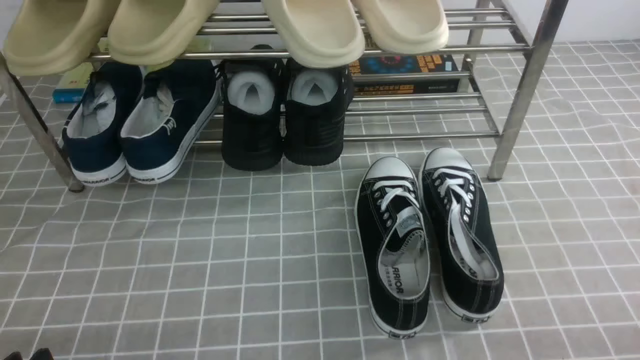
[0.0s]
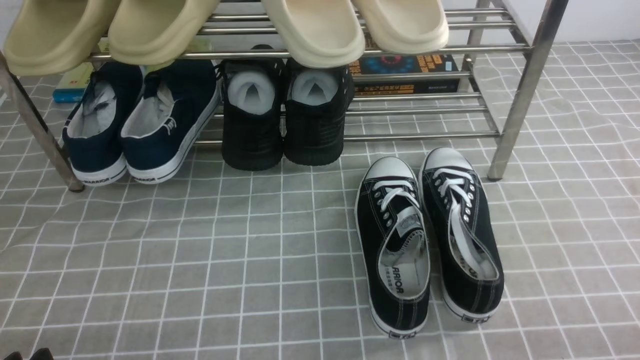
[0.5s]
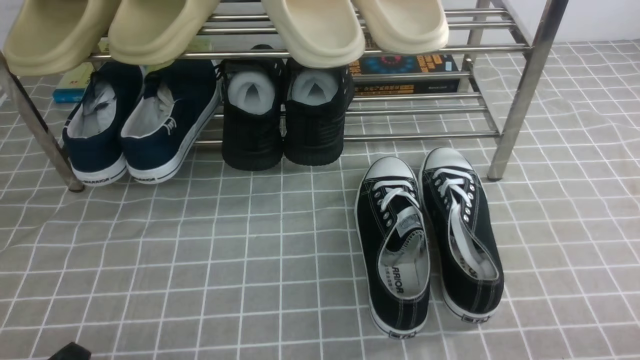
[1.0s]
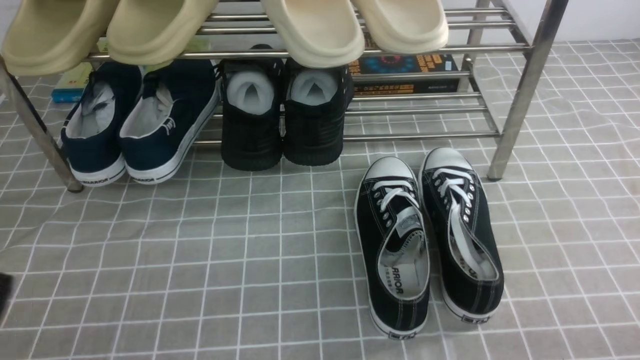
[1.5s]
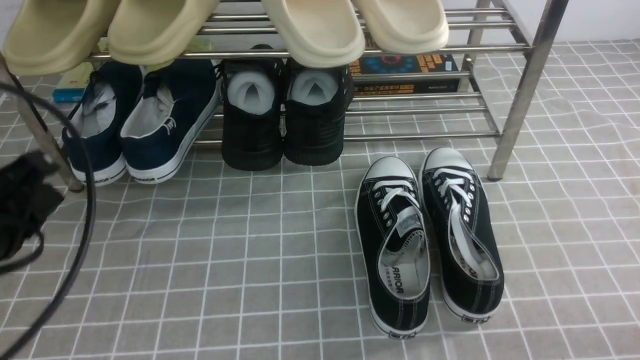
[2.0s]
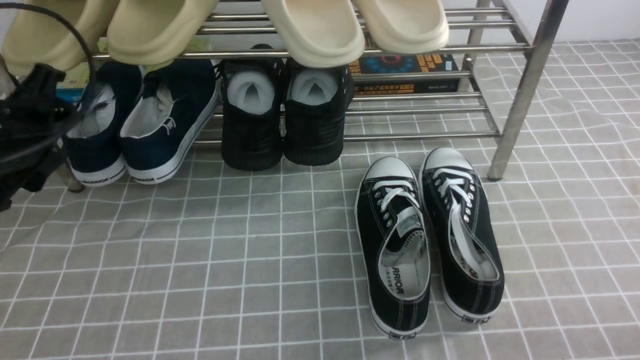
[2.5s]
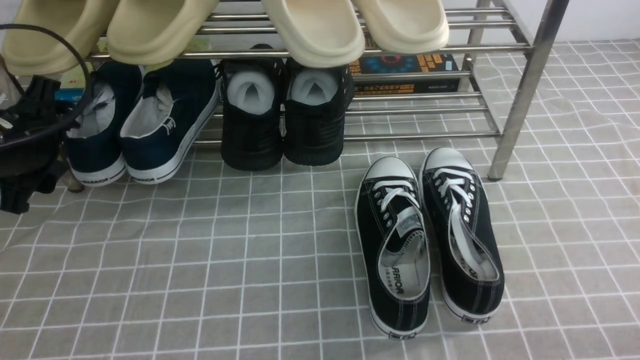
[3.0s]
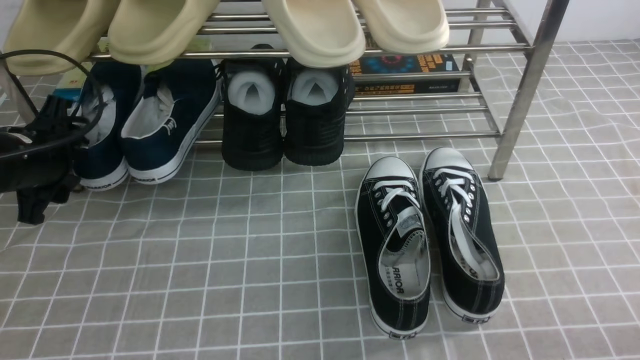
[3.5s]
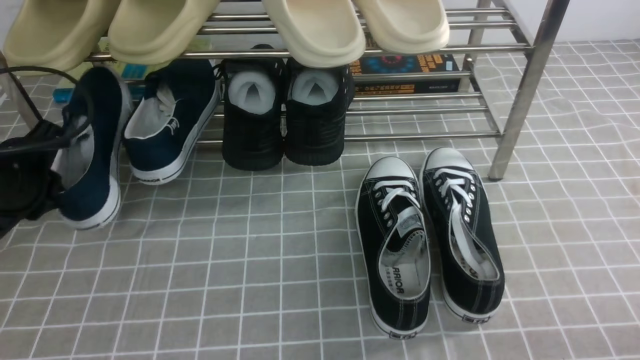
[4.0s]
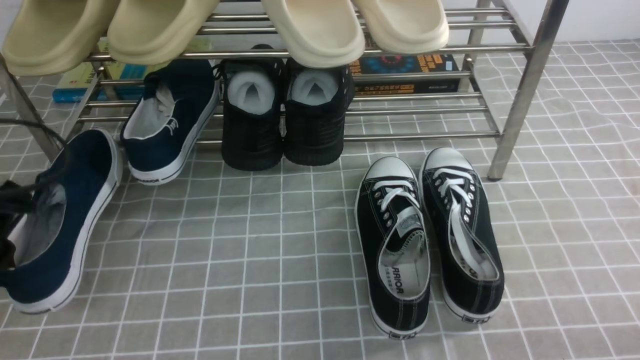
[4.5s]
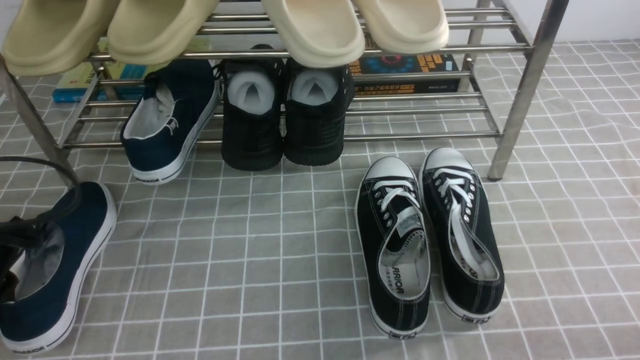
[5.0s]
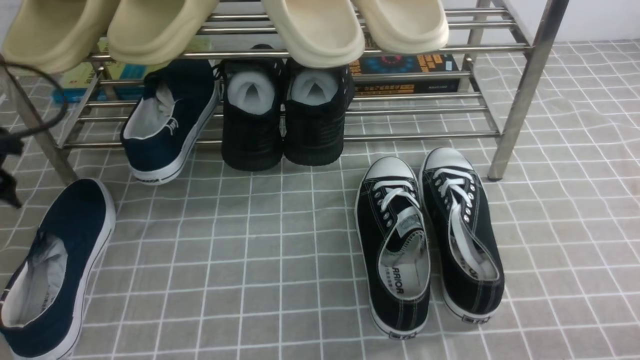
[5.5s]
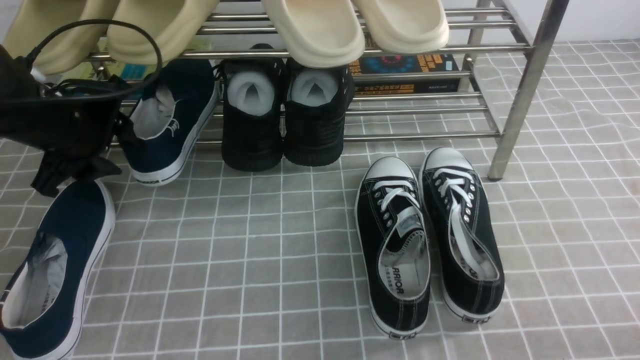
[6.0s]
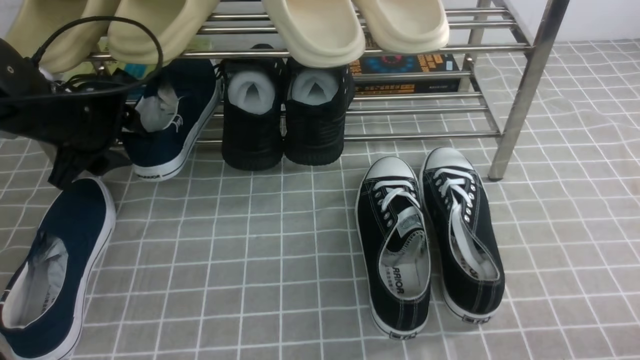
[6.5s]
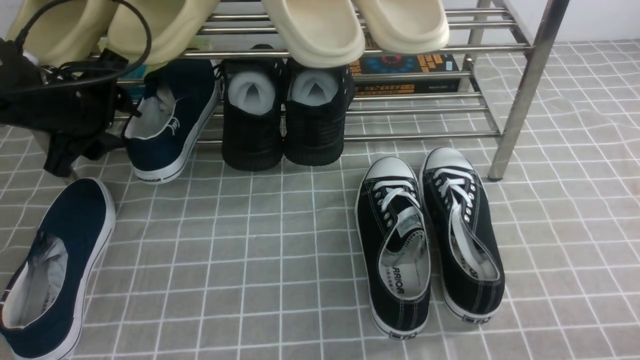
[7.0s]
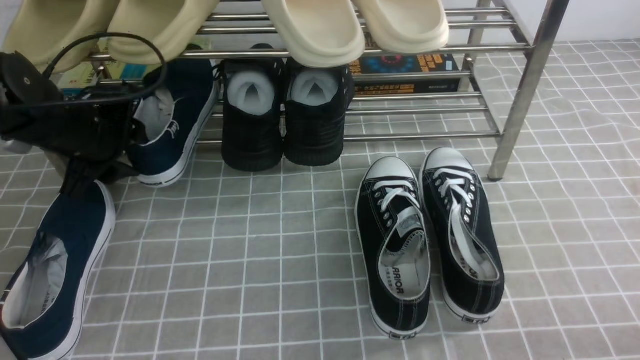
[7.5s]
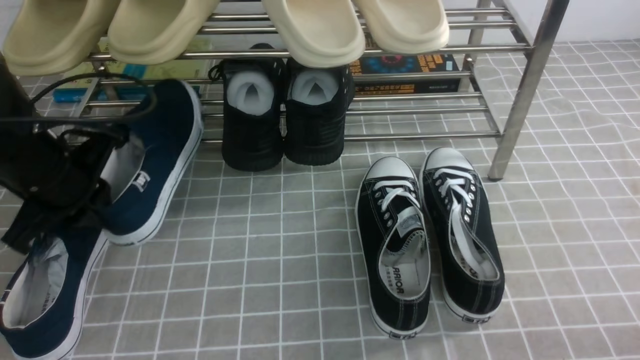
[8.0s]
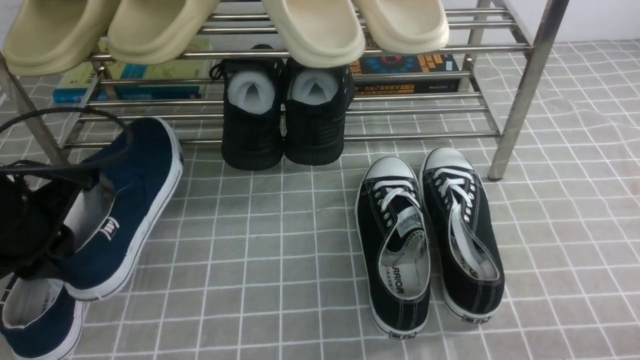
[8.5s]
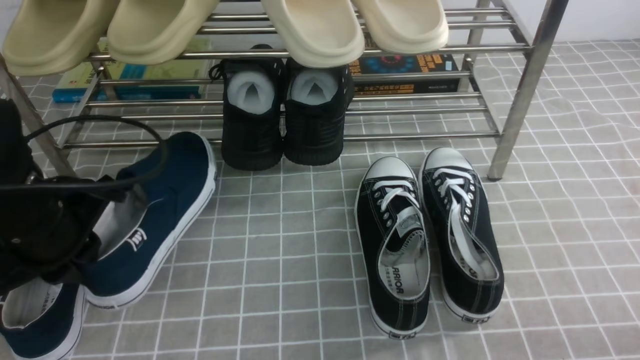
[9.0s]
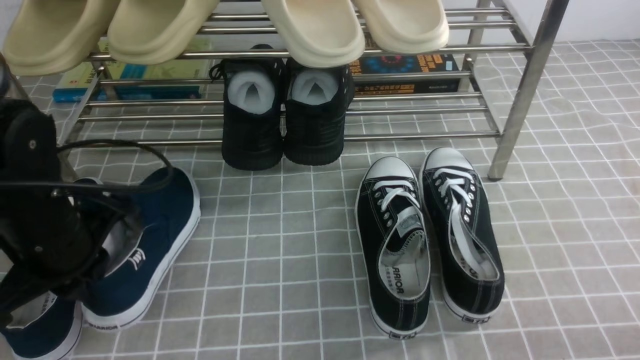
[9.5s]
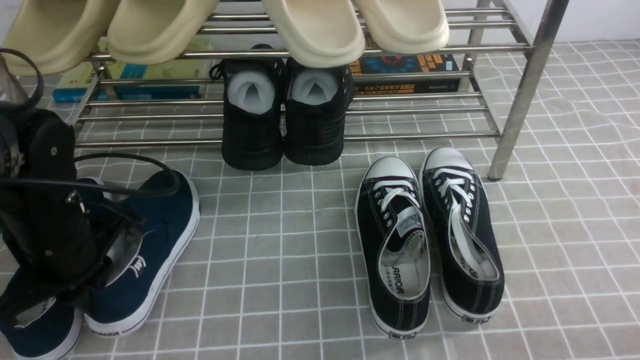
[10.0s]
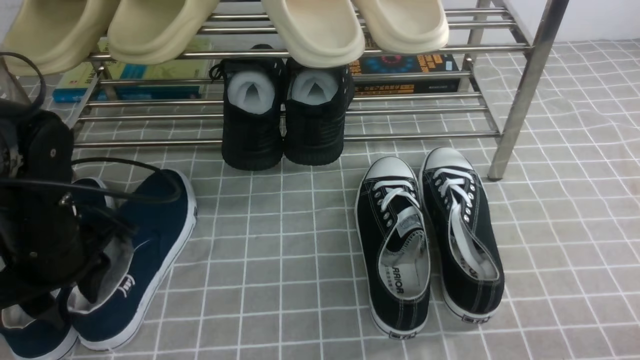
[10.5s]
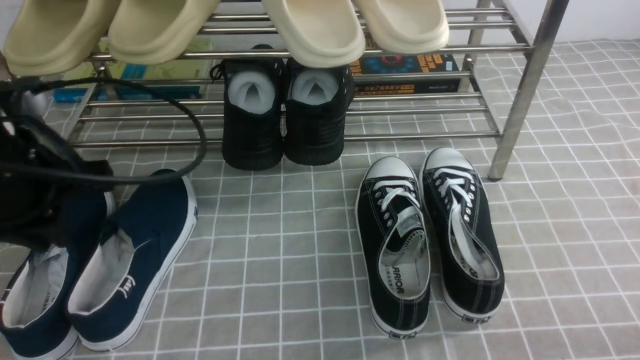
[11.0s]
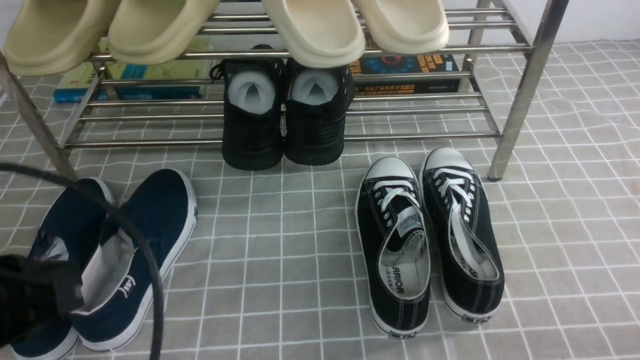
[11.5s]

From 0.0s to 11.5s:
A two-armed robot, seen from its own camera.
Step, from 0.0s to 3.5s: use the left arm to clamp a shoe on the left side of the shoe rack.
Step, from 4.0s to 5.5s: Use your left arm to remove the clamped shoe from the shoe rack and put it down.
Step, from 6.0s to 7.5s: use the left arm to clamp a shoe on the left side of the shoe rack.
Step, from 8.0s to 10.5s: Use your left arm to remove the clamped shoe from the shoe rack and put it down.
From 2.0s to 4.0s: The left gripper heads forward and downward, covering some 20 cm, and opens and closes again.
From 4.0s to 6.0s: The left gripper moves approximately 10 cm backward and comes back, and opens its fingers.
From 6.0s to 7.5s: The left gripper changes place by some 5 cm.
From 7.5s to 9.5s: The left gripper shifts some 10 cm backward, and closes.
From 9.5s to 11.5s: The left gripper moves backward and upward, approximately 15 cm, and opens and closes again.

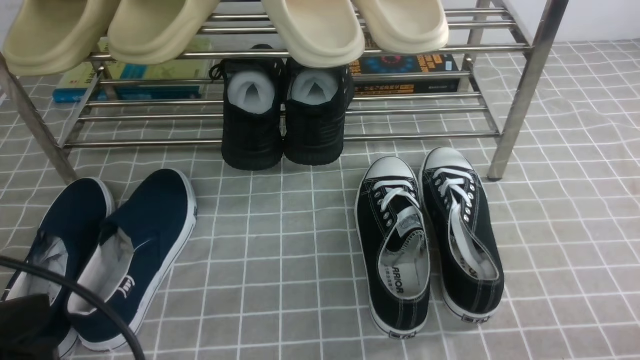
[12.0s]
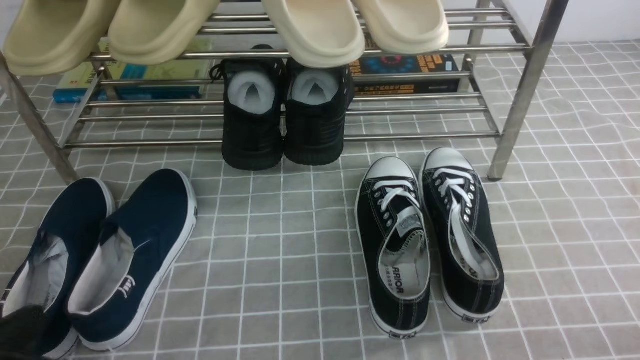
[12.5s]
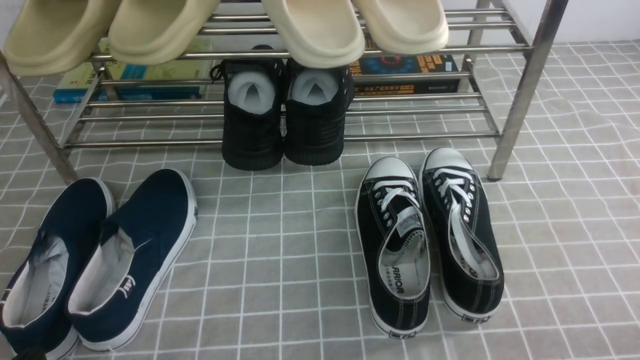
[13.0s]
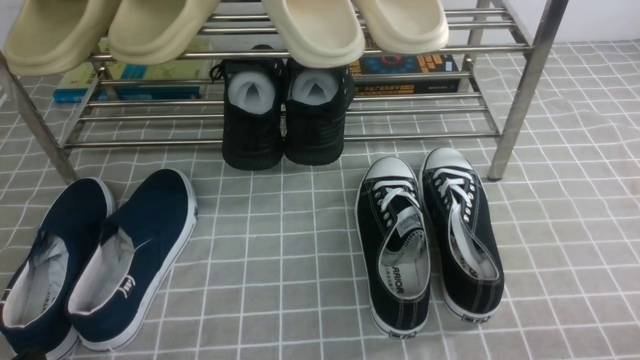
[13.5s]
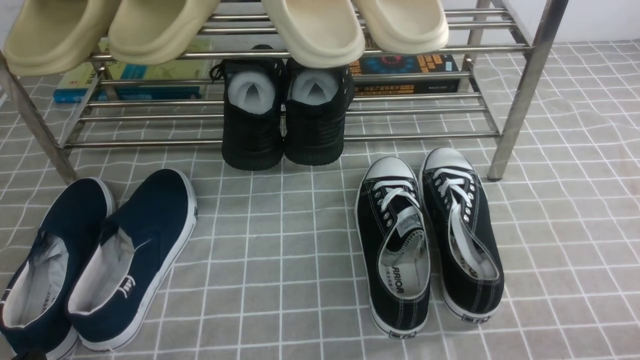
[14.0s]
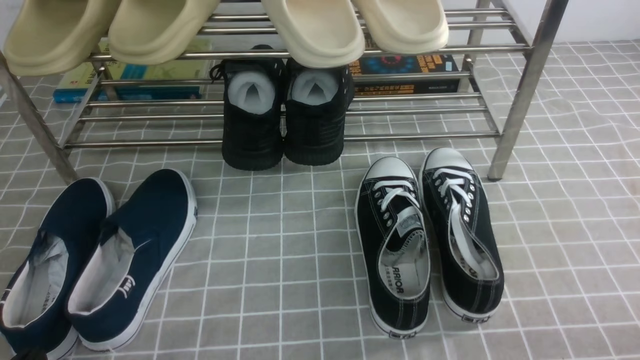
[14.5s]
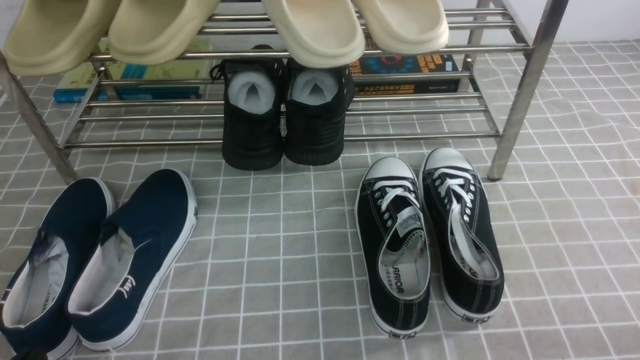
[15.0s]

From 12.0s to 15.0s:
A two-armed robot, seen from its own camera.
From 12.0s to 13.5s: The left gripper goes approximately 10 cm downward.
From 13.5s to 15.0s: Both grippers stay about where they are.

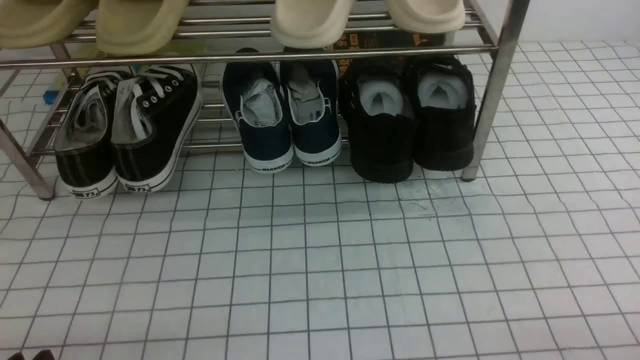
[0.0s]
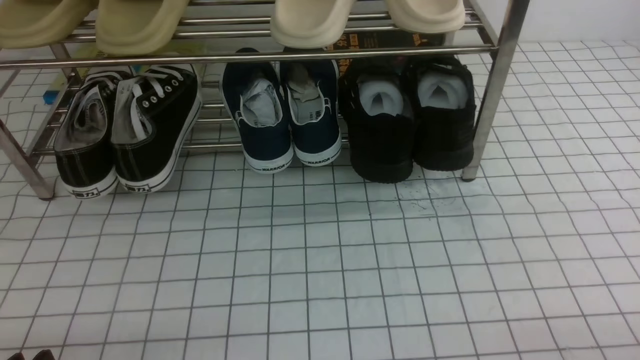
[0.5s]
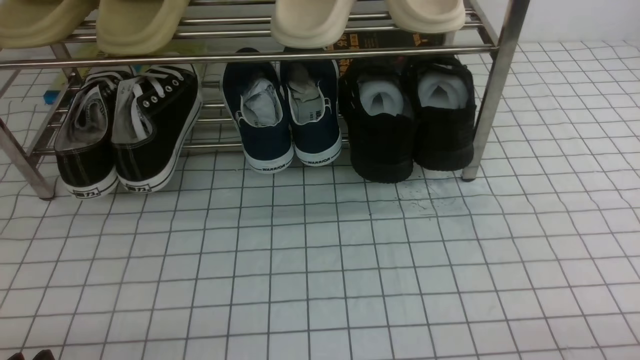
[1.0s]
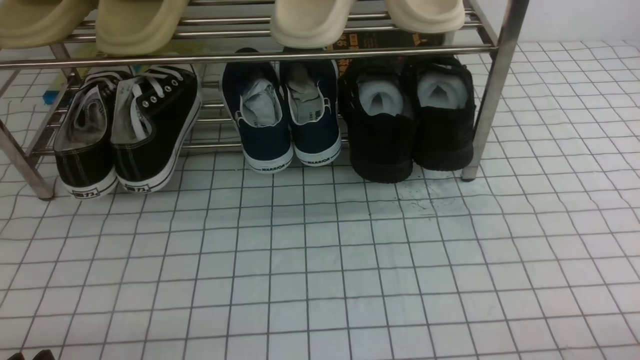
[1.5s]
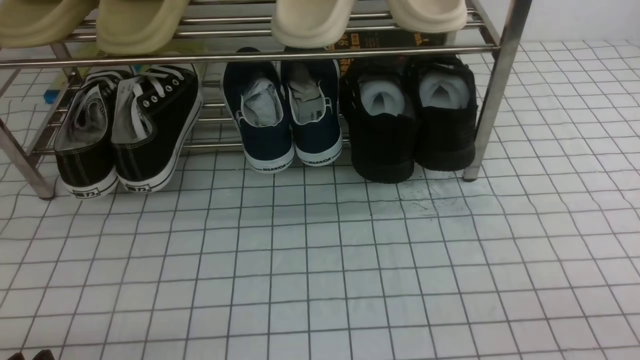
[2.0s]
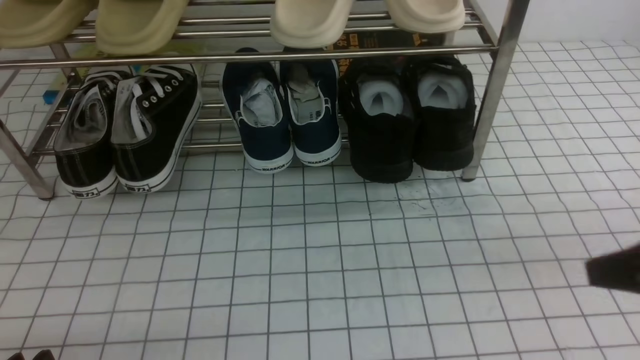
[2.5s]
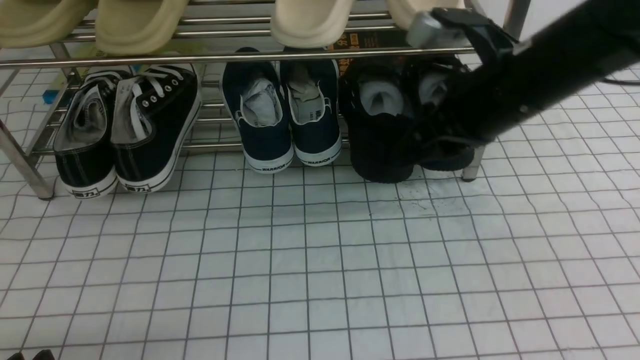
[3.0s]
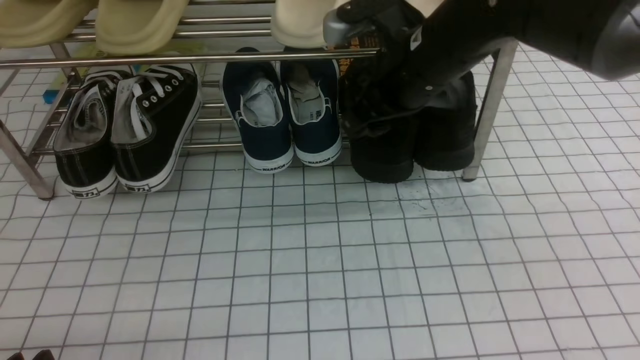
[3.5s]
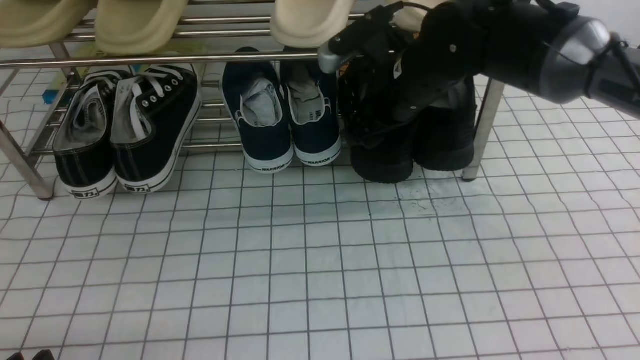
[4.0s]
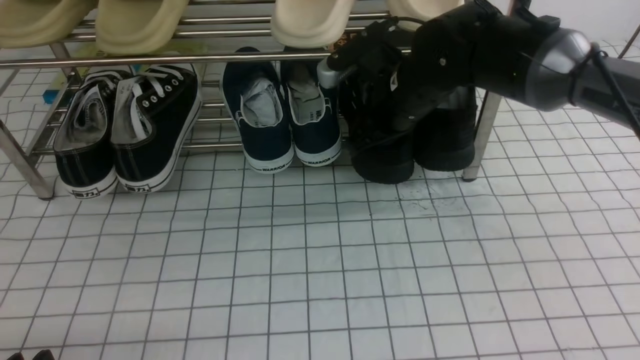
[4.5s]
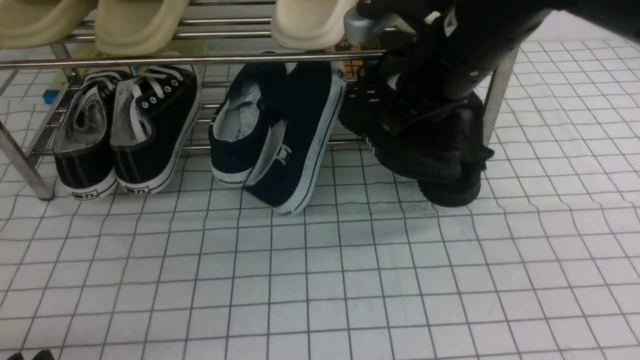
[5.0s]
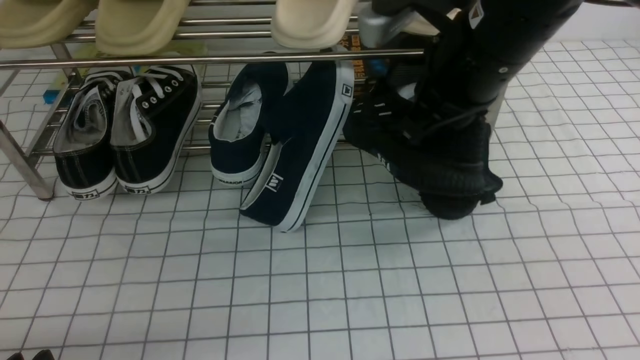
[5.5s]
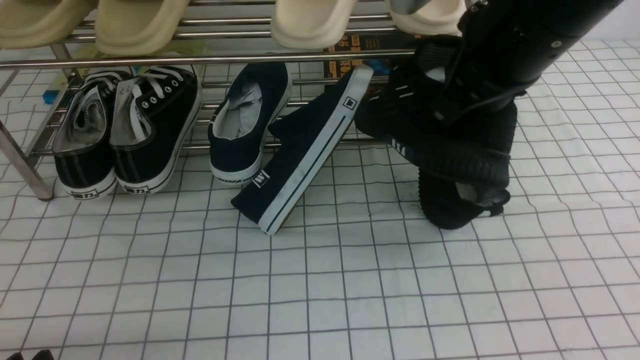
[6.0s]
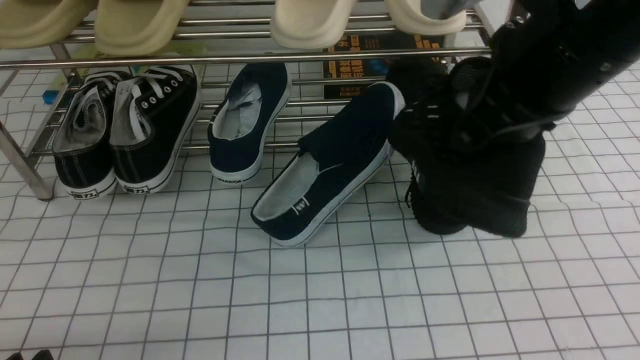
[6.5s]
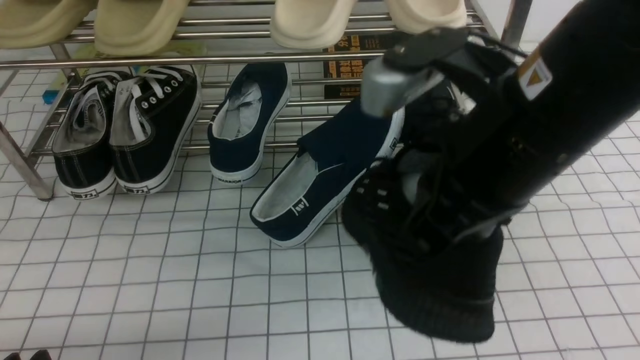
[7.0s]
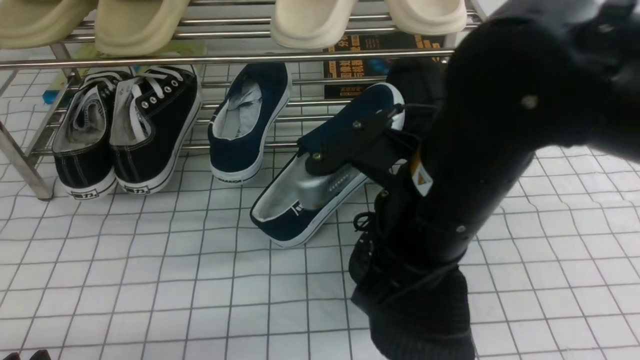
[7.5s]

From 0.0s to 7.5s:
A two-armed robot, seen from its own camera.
Step, from 0.0s to 4.0s: use the right arm to clamp a shoe on the right side of the shoe rack.
From 2.0s to 4.0s: The right gripper heads forward and to the left, covering roughly 40 cm, and opens up.
From 4.0s to 5.5s: The right gripper travels upward and backward by about 15 cm, and closes.
From 5.5s to 7.5s: The right gripper is displaced backward, to the left and downward by approximately 15 cm.
